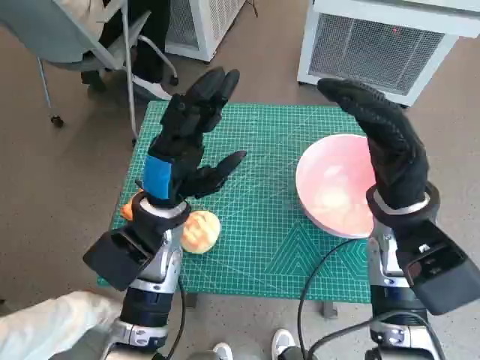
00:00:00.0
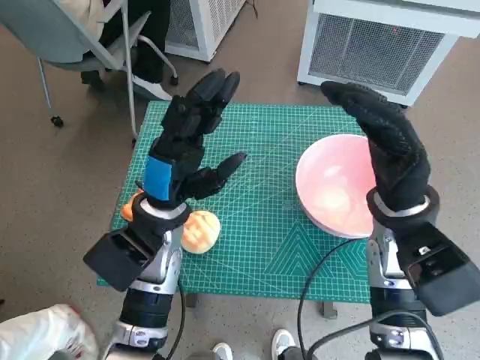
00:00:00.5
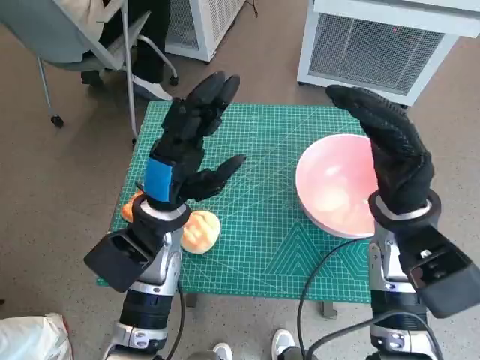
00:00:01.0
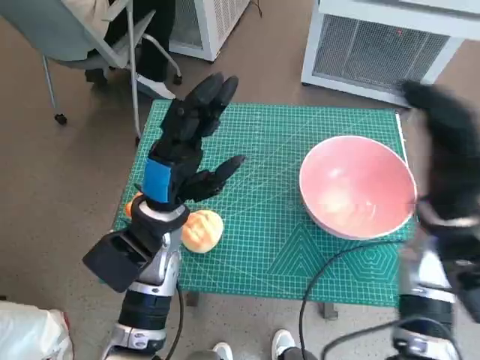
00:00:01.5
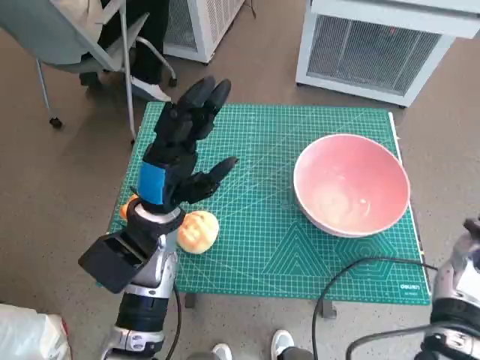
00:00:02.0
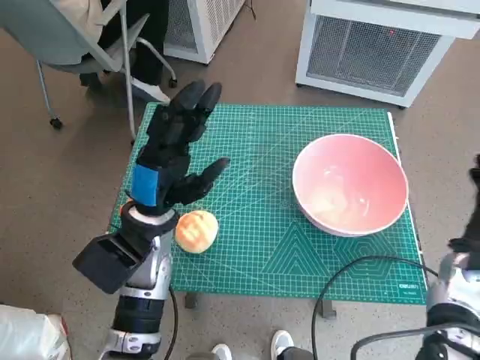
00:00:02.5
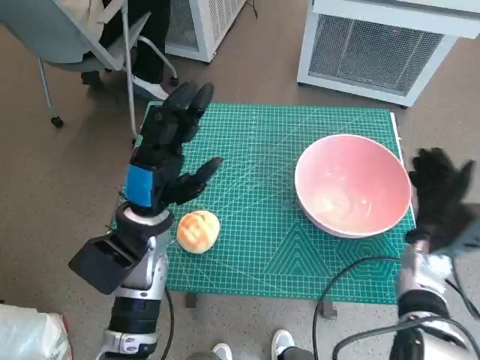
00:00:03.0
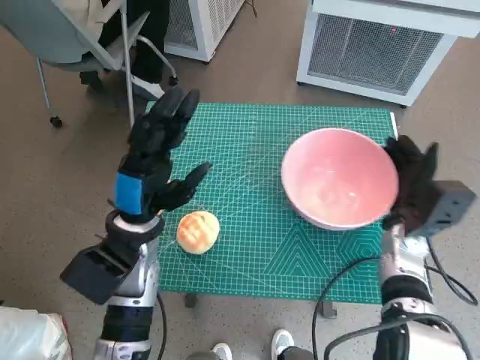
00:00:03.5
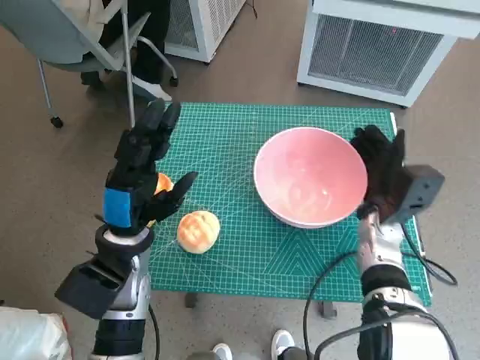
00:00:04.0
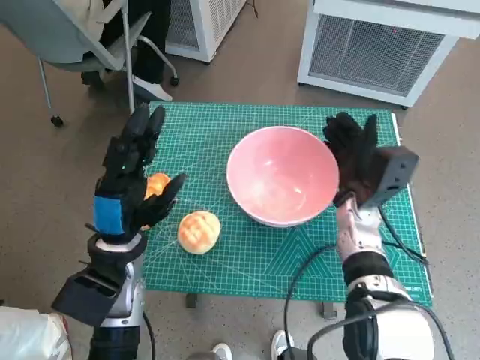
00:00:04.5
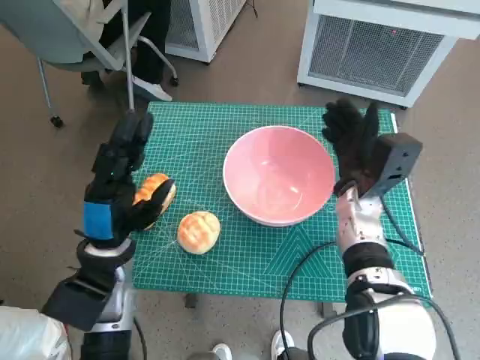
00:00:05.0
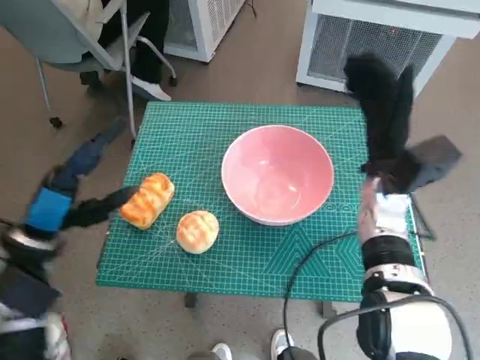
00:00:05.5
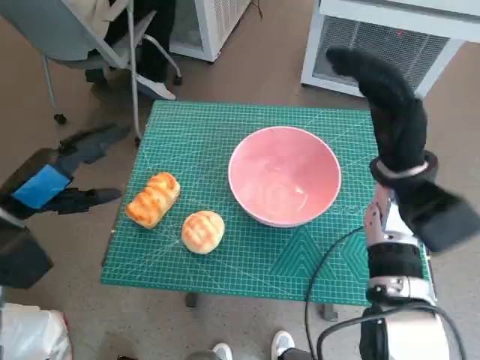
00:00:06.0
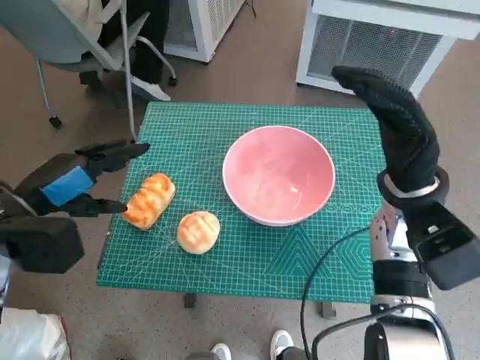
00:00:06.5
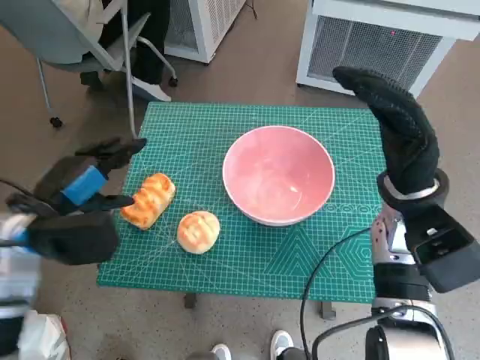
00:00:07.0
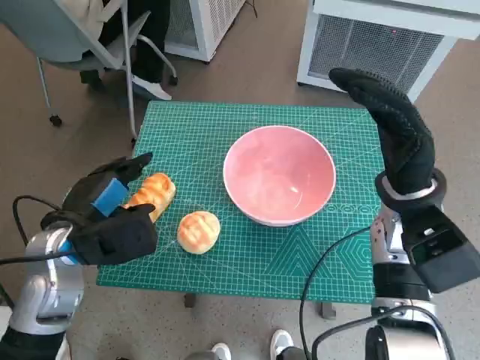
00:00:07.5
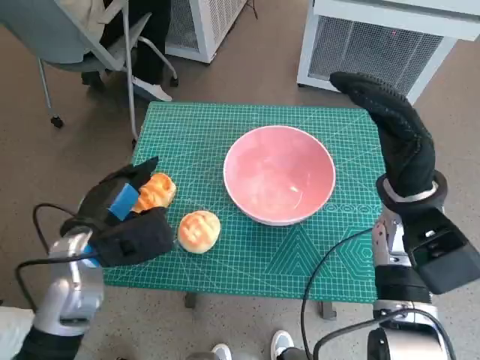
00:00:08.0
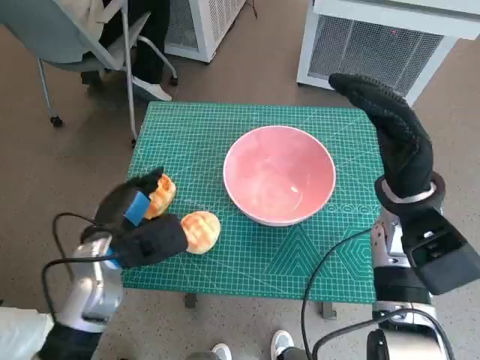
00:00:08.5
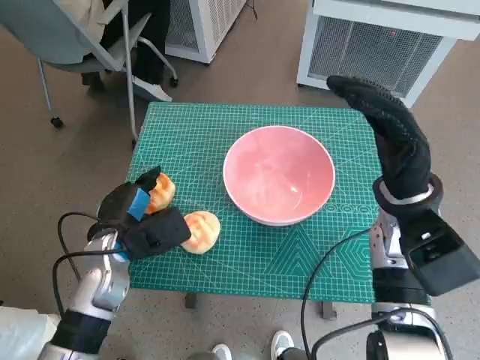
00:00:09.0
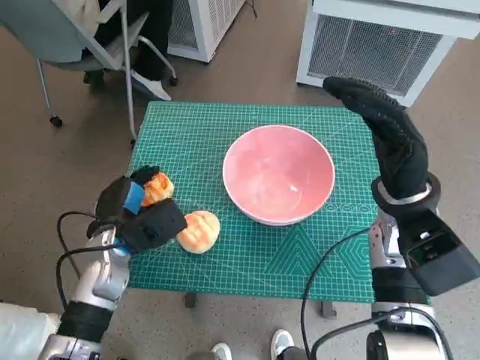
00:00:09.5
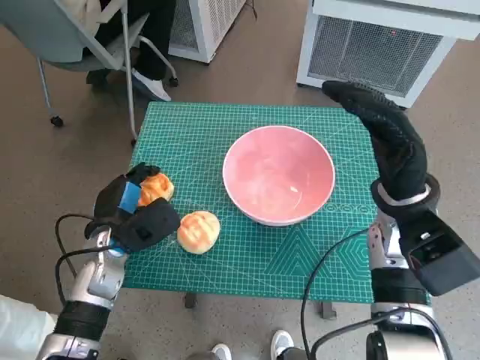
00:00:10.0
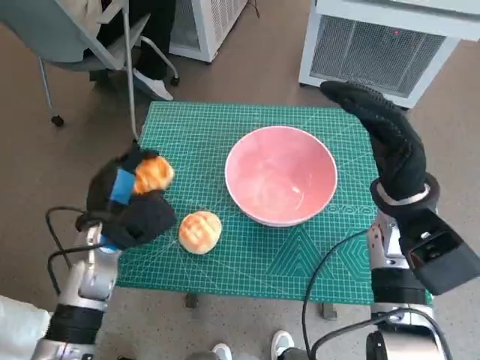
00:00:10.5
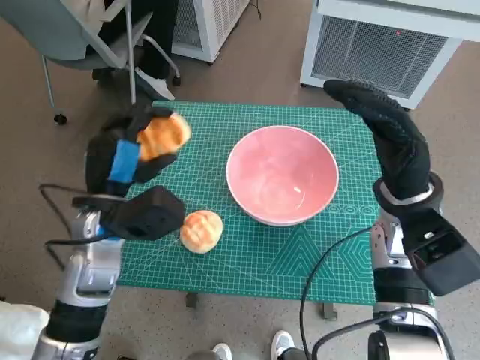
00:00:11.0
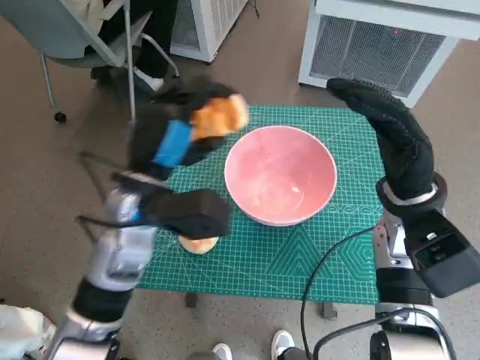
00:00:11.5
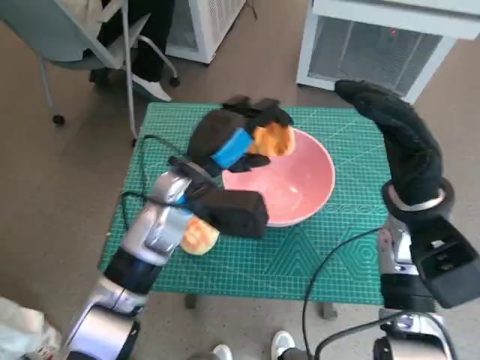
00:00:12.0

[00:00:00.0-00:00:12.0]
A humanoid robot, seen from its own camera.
Task of the whole recording: Push the bowl to the center of the table and put the bread into the bowl.
Step, 00:00:00.0 to 00:00:05.0: Move the pink bowl to the center of table with right hand.
Step, 00:00:05.5 to 00:00:09.5: Grasp the long bread with left hand.
00:00:02.0 to 00:00:04.0: The right hand is displaced to the left, downward and forward by roughly 10 cm.
00:00:04.0 to 00:00:06.0: The left hand heads to the left and upward, covering about 15 cm; the right hand heads upward, covering roughly 10 cm.
00:00:06.0 to 00:00:08.0: The left hand moves to the right and downward, about 10 cm.
00:00:08.0 to 00:00:10.0: The left hand shifts about 5 cm downward.
00:00:10.0 to 00:00:12.0: The left hand heads to the right and upward, covering about 15 cm.

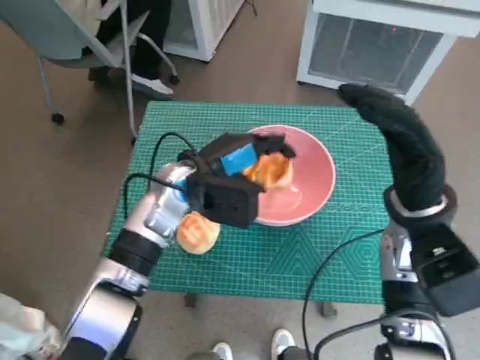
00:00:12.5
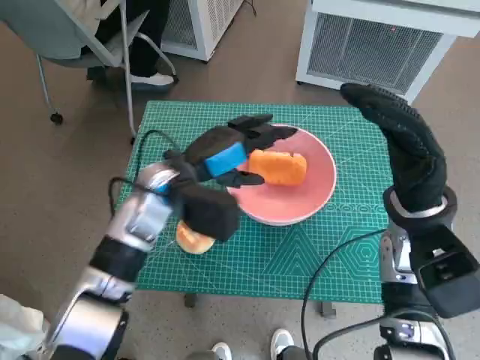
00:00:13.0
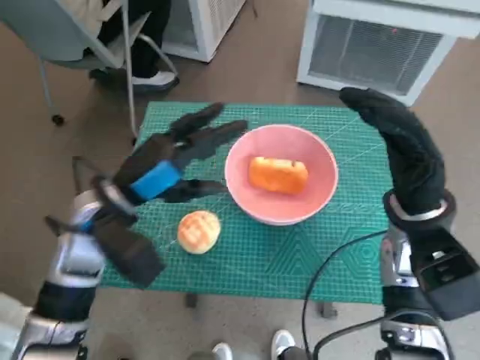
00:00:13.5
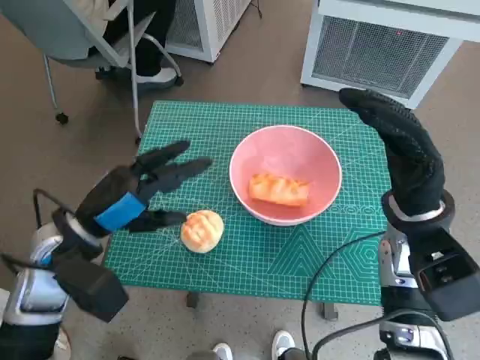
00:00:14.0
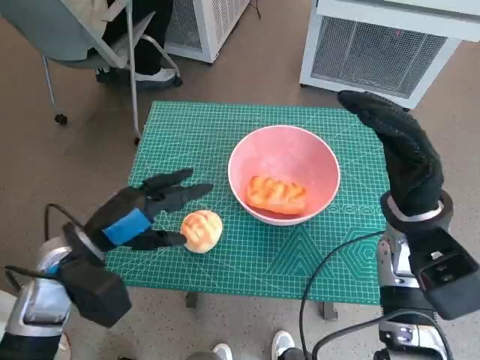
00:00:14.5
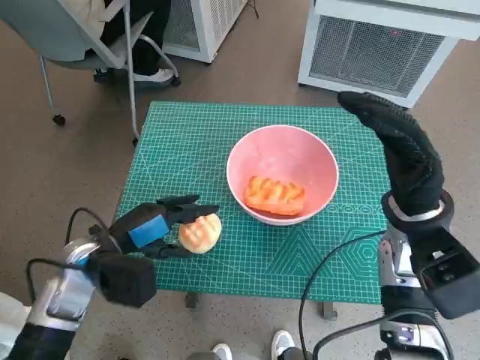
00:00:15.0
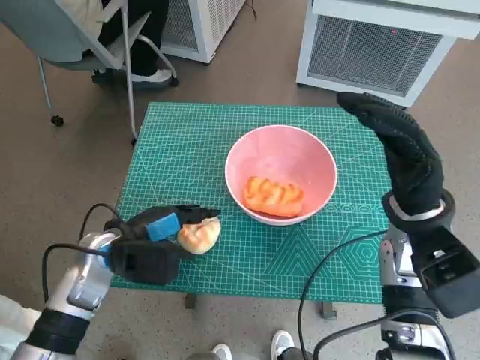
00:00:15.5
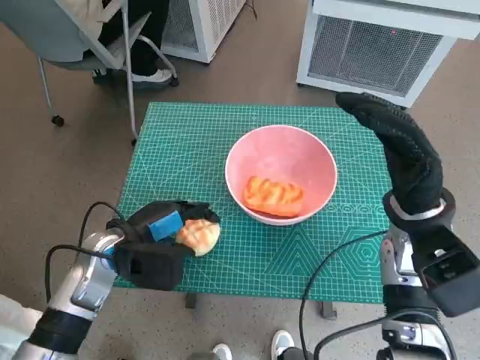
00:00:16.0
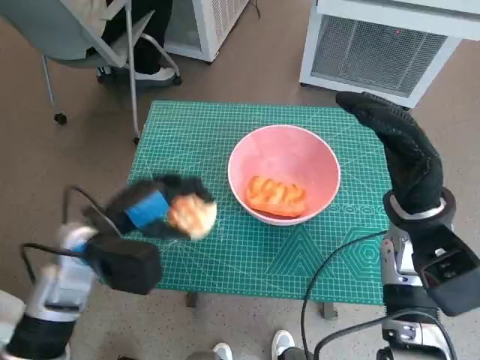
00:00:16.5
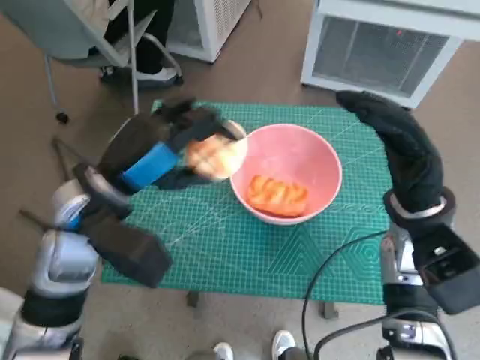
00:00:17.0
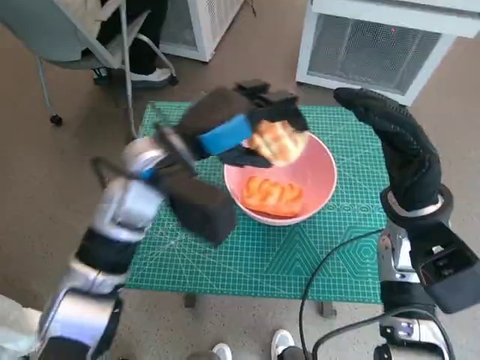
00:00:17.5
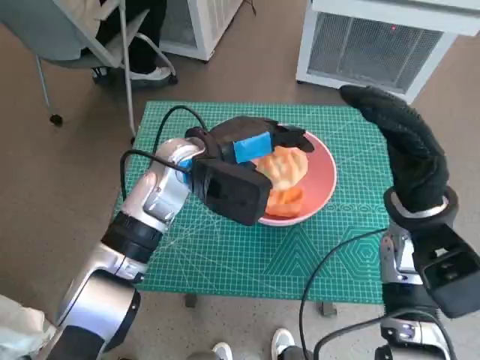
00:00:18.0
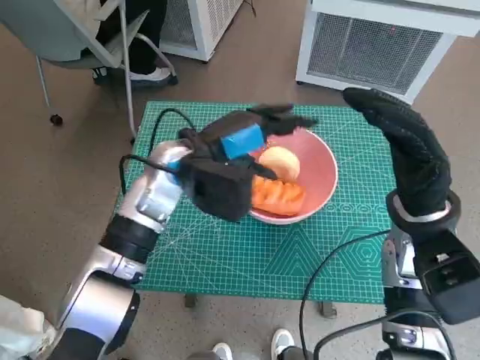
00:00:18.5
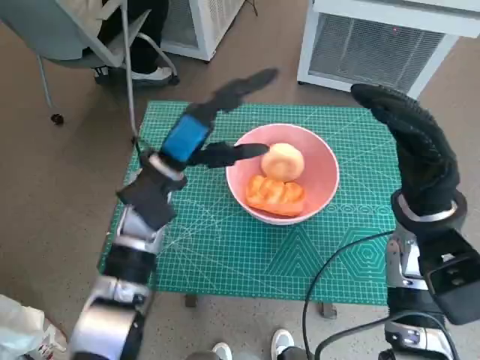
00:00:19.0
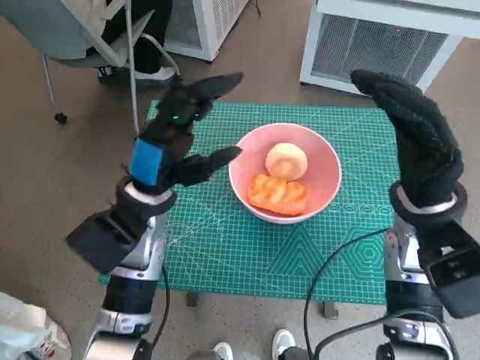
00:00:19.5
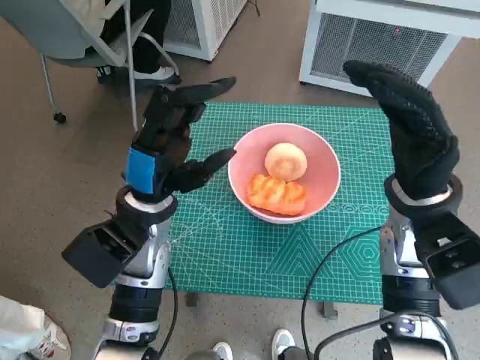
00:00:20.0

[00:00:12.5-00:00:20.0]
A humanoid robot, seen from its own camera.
Task of the whole recording: Push the bowl to the center of the table and put the bread into the bowl.
Step, 00:00:13.5 to 00:00:15.5: Grasp the round bread with left hand.
Step, 00:00:16.0 to 00:00:18.0: Place the round bread in pink bowl with left hand.
00:00:12.5 to 00:00:14.5: The left hand heads to the left and backward, covering some 15 cm.
00:00:16.5 to 00:00:18.0: The left hand shifts approximately 15 cm to the right, forward and upward.
00:00:18.0 to 00:00:20.0: The left hand goes roughly 10 cm backward and to the left.

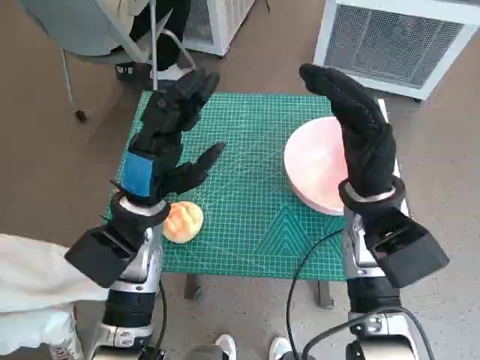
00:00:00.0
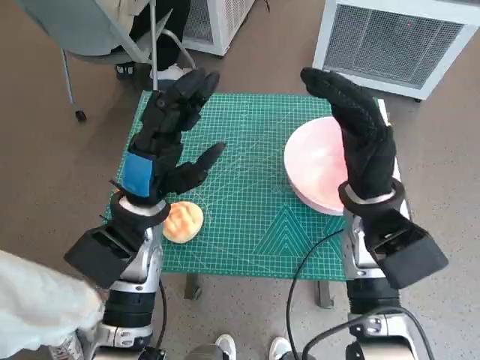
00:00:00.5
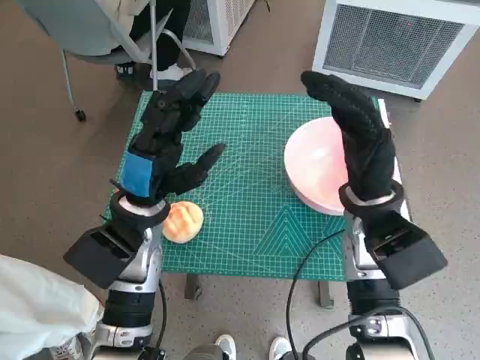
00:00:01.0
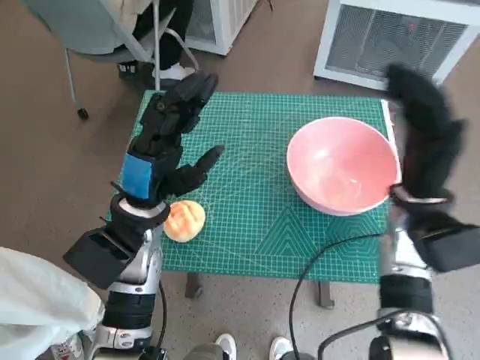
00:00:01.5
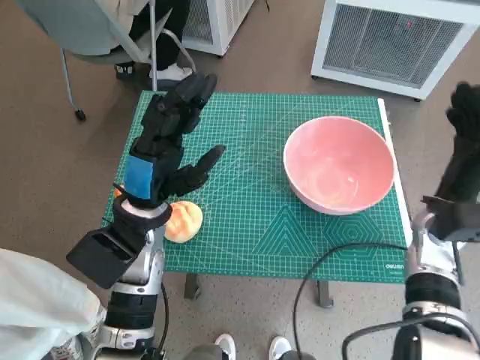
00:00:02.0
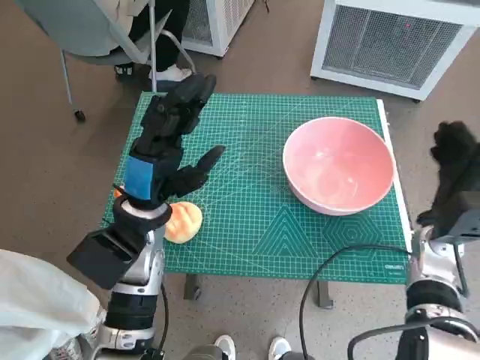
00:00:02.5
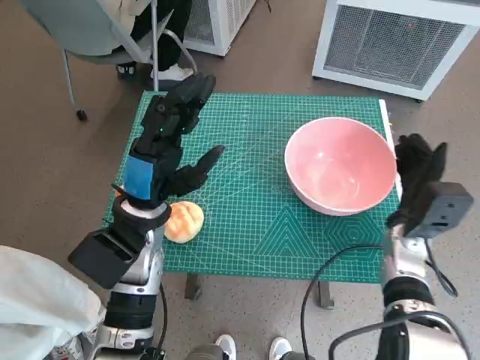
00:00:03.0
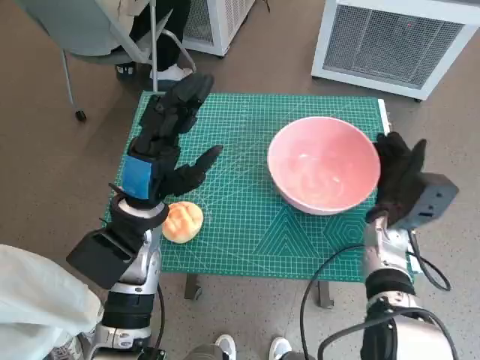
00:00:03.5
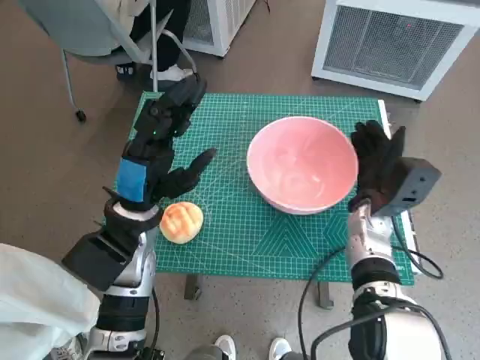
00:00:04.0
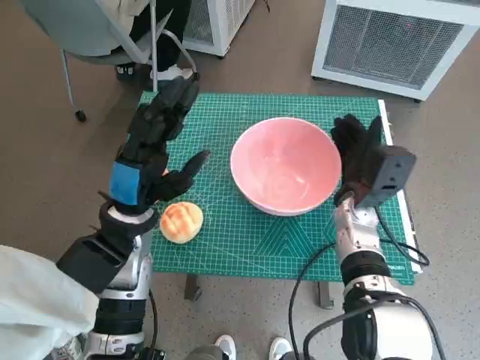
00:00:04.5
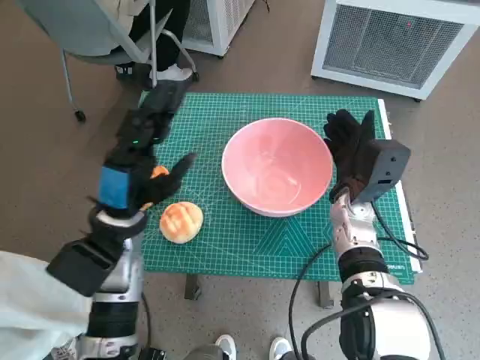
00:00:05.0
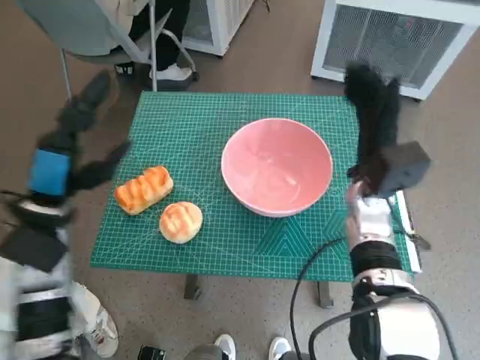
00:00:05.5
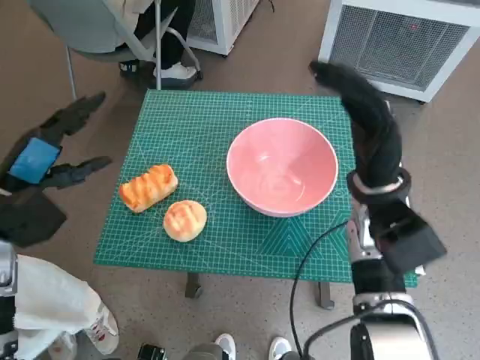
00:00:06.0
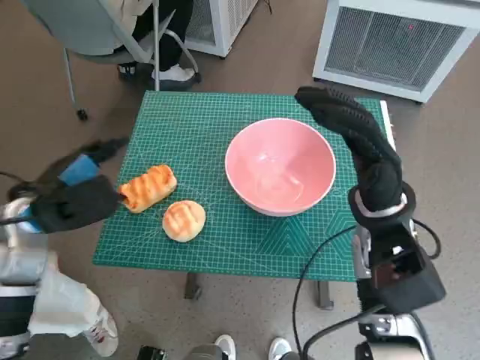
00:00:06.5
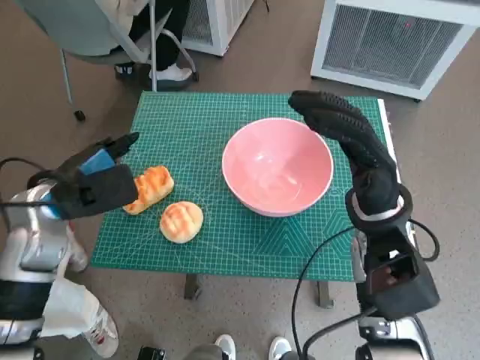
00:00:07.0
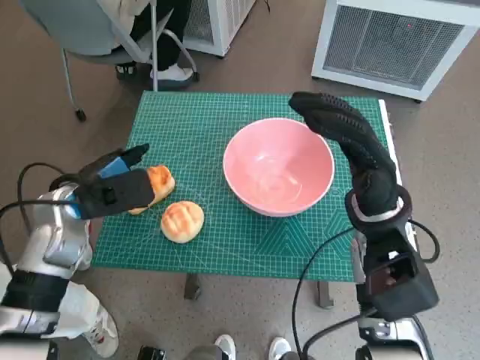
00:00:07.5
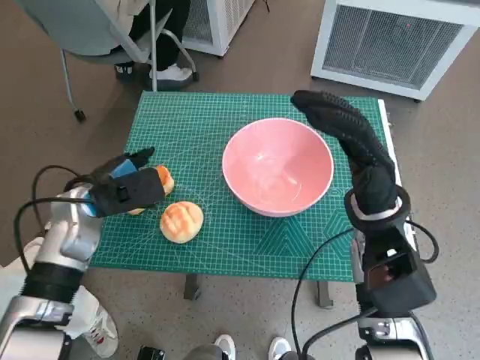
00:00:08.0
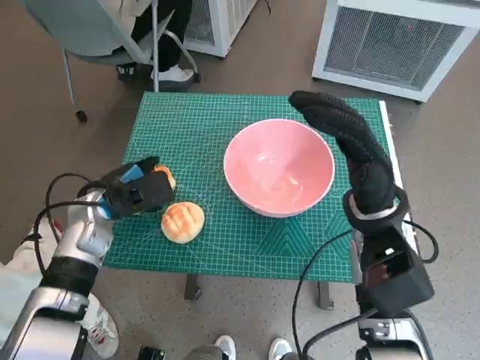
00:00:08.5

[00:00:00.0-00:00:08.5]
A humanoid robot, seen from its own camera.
Task of the whole recording: Push the bowl to the center of the table and put the bread into the bowl.
Step, 00:00:00.0 to 00:00:05.0: Move the pink bowl to the center of table with right hand.
00:00:02.0 to 00:00:04.0: The right hand shifts approximately 5 cm to the left.
00:00:04.0 to 00:00:06.5: The right hand heads upward, covering approximately 10 cm. Meanwhile the left hand goes roughly 10 cm to the left.
00:00:06.5 to 00:00:08.5: The left hand goes about 5 cm downward.
